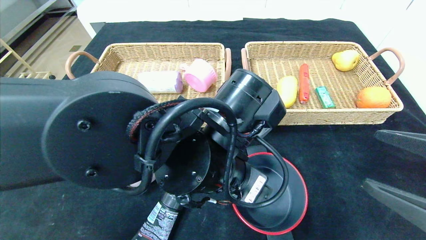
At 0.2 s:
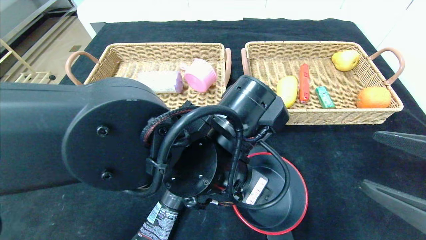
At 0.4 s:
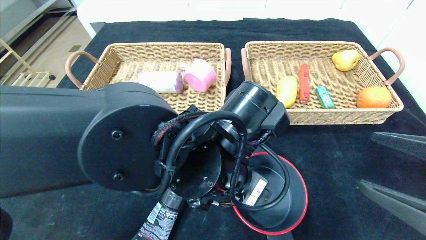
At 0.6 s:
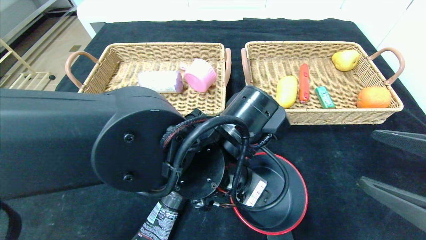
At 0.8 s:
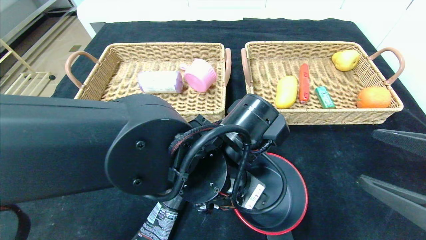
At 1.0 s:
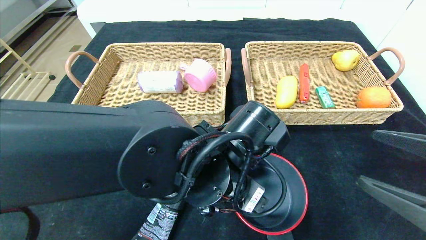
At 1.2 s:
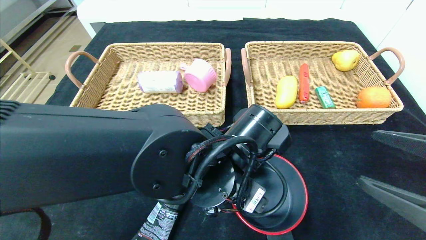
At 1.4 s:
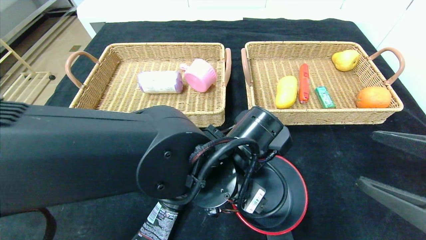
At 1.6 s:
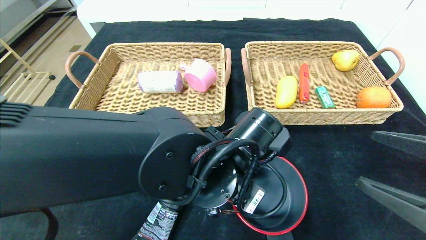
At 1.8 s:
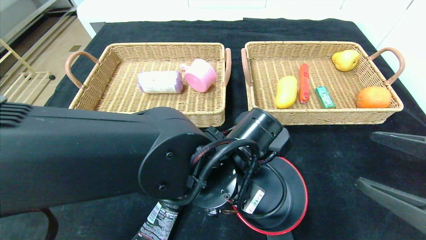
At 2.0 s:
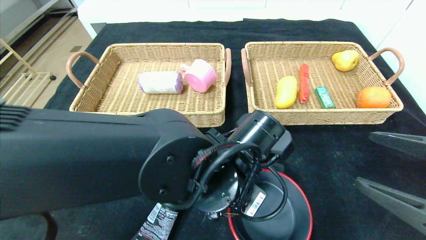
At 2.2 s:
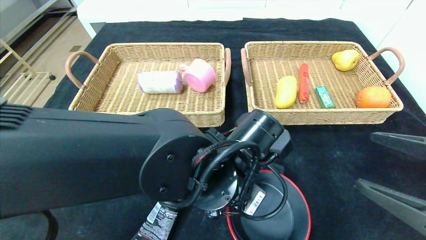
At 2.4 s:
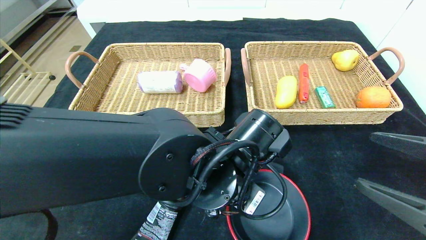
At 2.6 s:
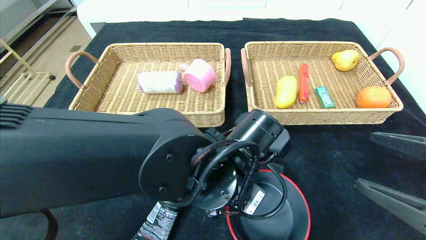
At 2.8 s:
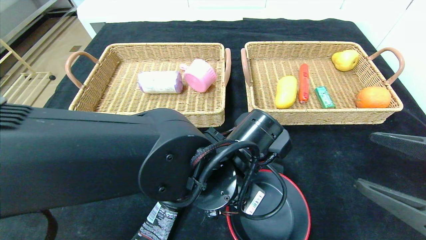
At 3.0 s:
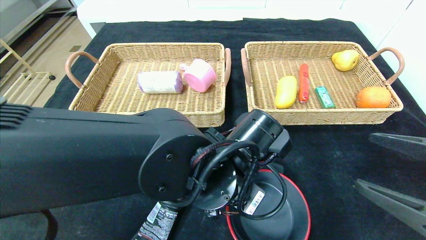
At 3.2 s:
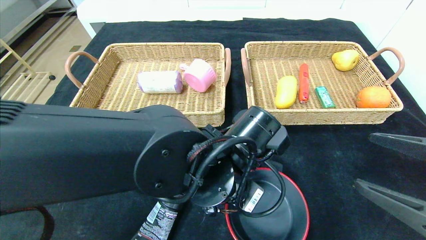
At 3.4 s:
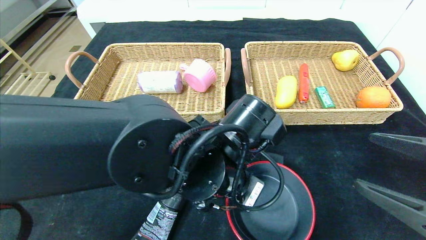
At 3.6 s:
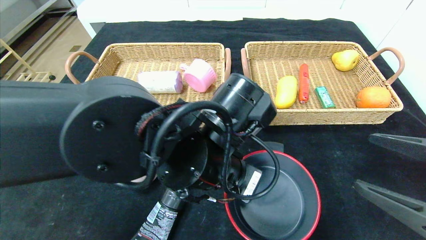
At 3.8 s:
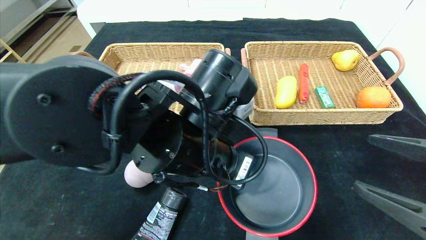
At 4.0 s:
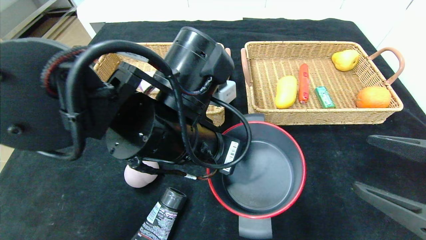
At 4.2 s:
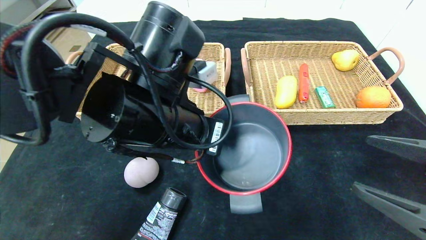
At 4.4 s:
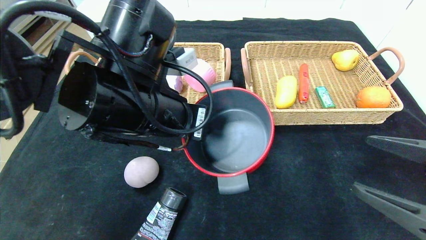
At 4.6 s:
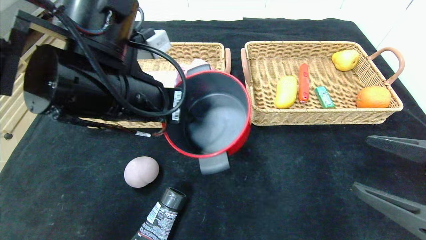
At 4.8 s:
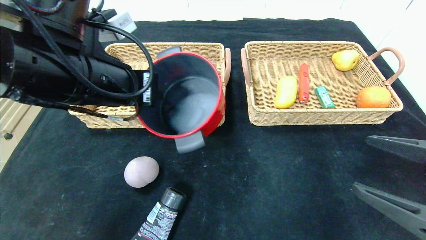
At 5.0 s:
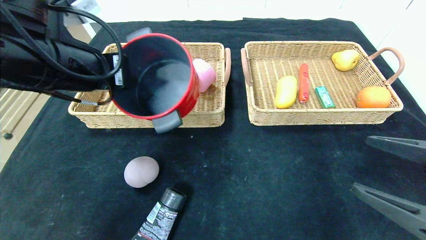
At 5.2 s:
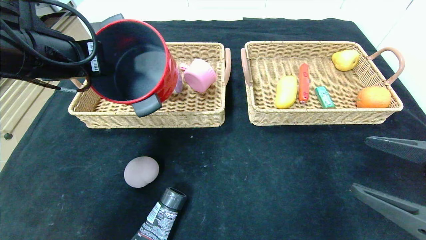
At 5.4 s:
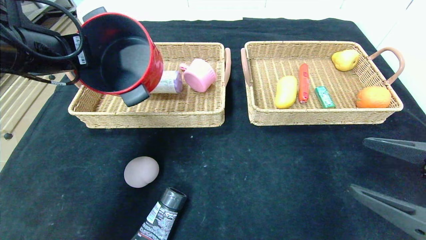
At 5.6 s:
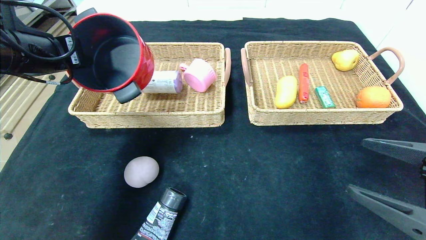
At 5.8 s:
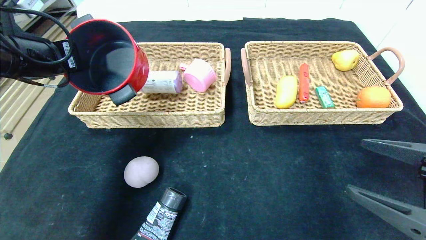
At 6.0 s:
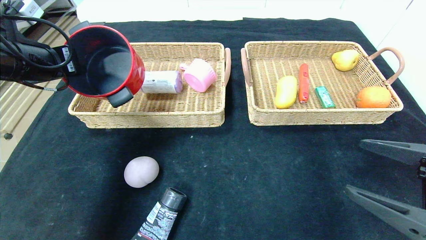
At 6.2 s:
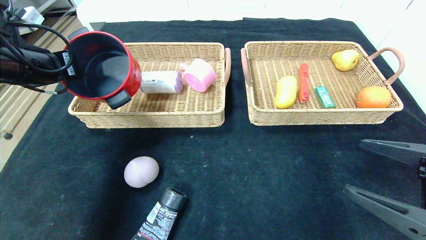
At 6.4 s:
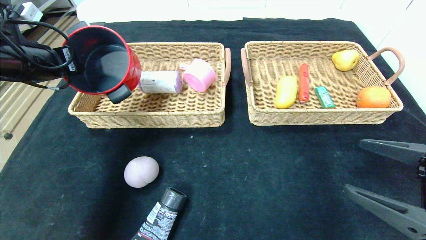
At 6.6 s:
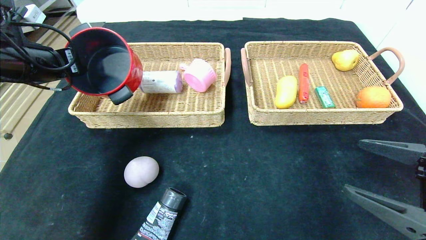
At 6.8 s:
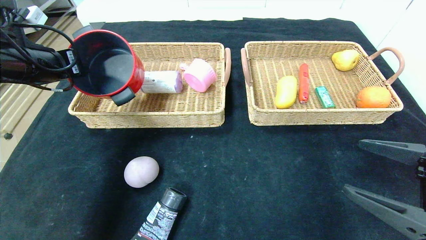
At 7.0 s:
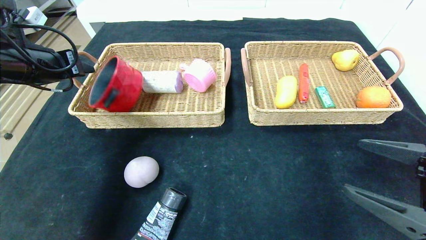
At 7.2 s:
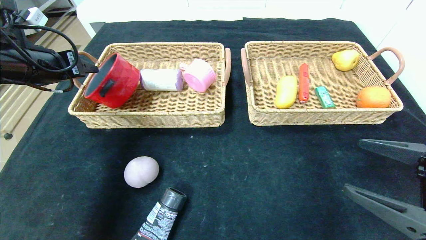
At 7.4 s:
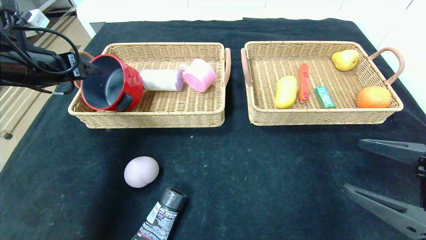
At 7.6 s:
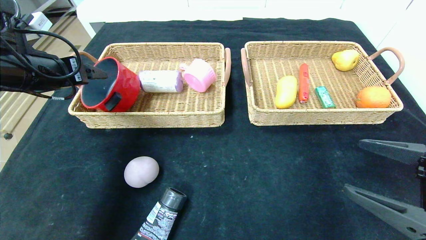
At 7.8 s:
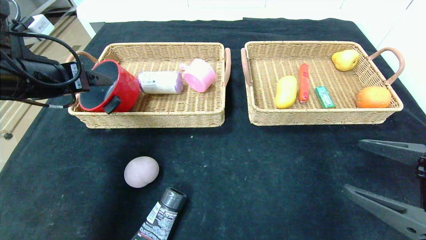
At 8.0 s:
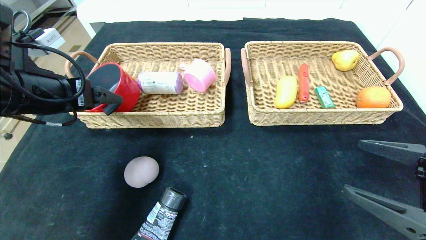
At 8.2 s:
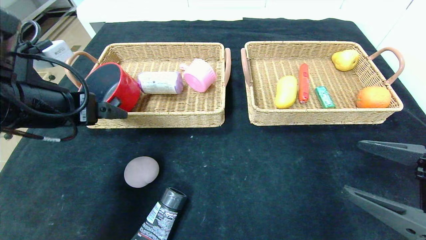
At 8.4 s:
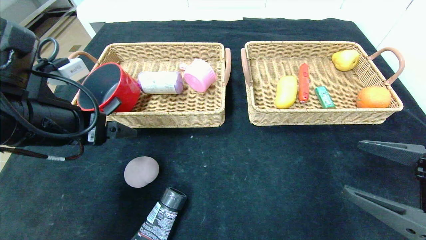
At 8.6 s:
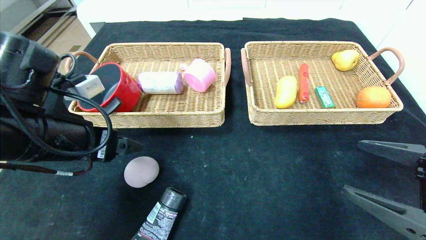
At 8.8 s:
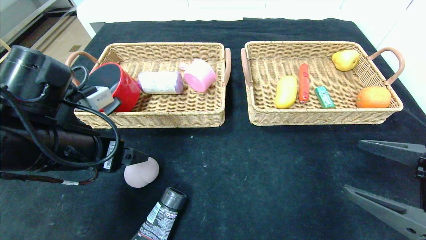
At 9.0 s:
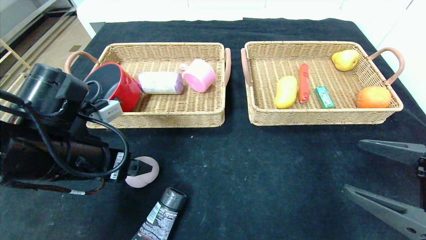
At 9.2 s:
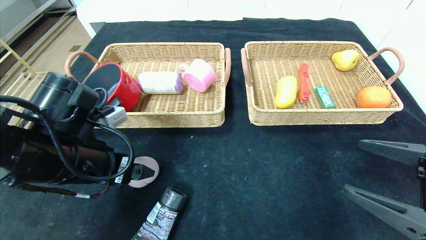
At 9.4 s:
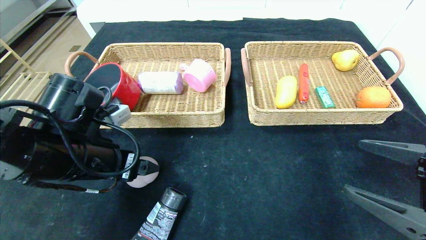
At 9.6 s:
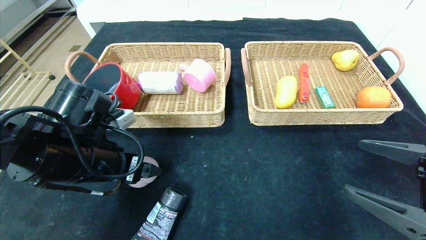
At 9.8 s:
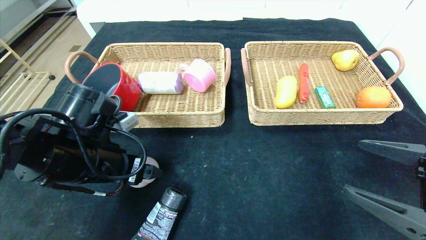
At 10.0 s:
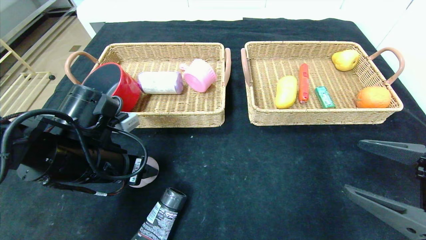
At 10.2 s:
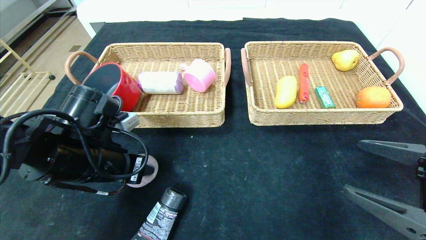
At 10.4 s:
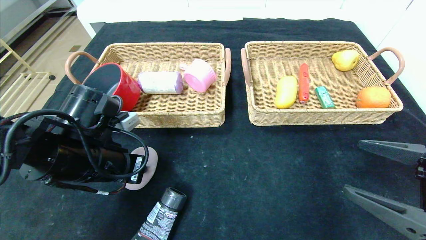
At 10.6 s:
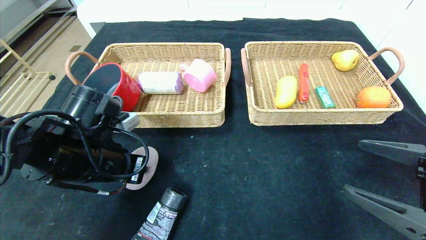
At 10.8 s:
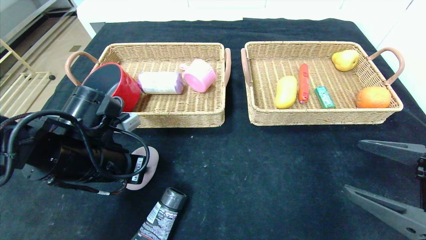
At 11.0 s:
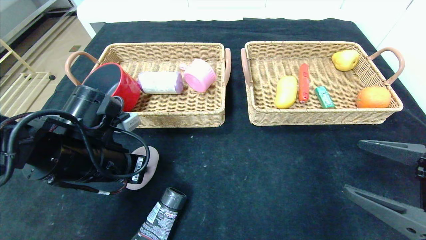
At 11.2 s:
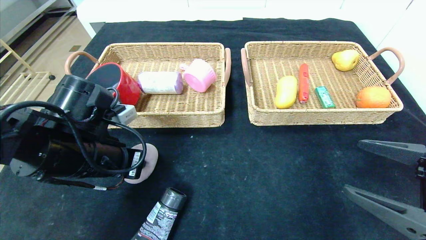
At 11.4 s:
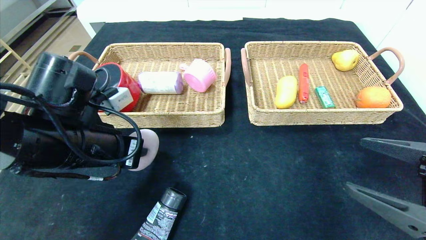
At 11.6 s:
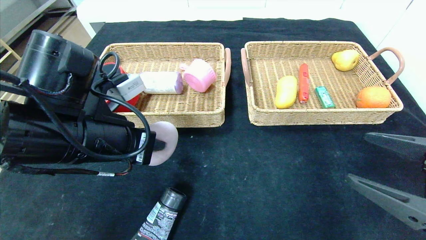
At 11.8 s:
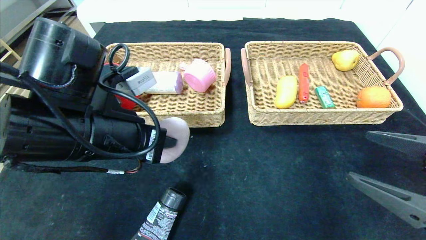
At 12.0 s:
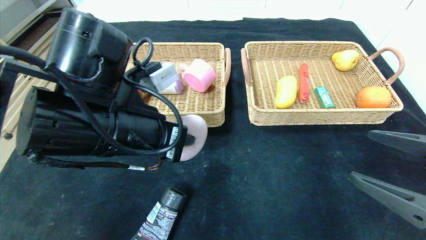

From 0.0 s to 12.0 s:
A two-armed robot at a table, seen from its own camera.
Step, from 0.0 s to 7.0 s: Grasp the red pot and put it in the left basket.
From 1.6 s to 3.0 s: The left gripper closes its fingers.
From 3.0 s to 4.4 s: The left gripper goes some 15 cm upward and to the left.
From 4.4 s to 6.0 s: The left gripper travels to the left by some 20 cm.
From 6.0 s to 7.6 s: The left gripper opens.
From 7.6 s to 9.0 s: The left gripper heads to the right, downward and backward, covering roughly 15 cm.
From 9.0 s to 10.4 s: The left gripper closes its fingers.
From 10.4 s to 12.0 s: The left gripper travels to the right and upward by some 10 cm.

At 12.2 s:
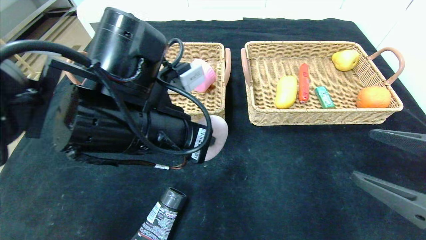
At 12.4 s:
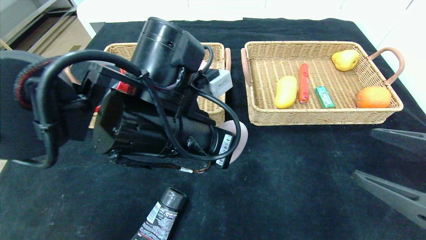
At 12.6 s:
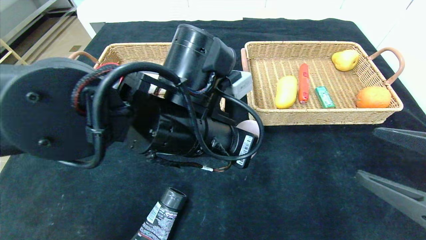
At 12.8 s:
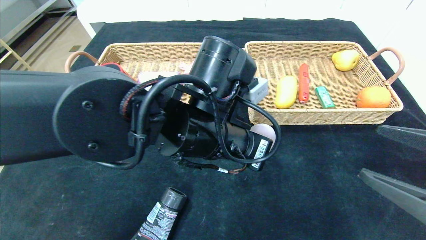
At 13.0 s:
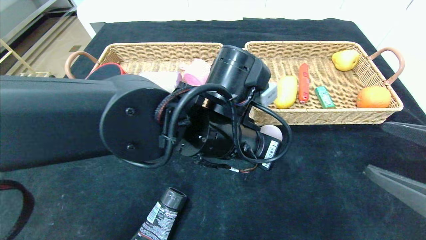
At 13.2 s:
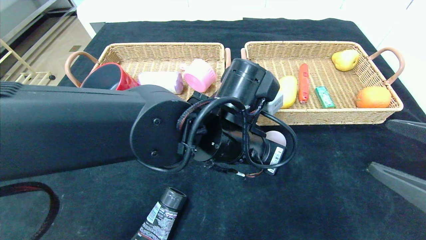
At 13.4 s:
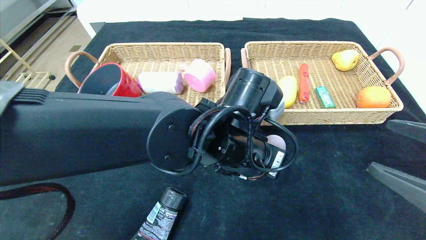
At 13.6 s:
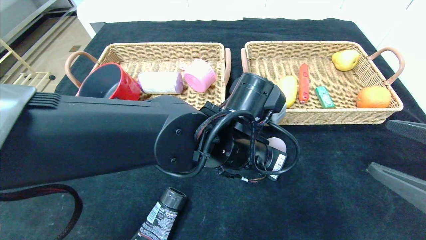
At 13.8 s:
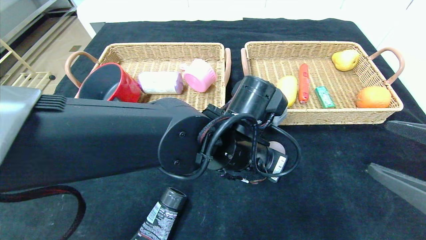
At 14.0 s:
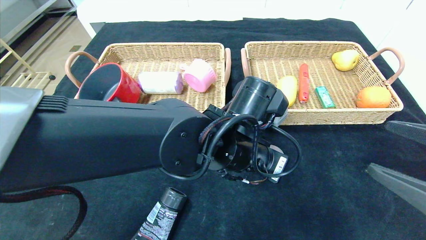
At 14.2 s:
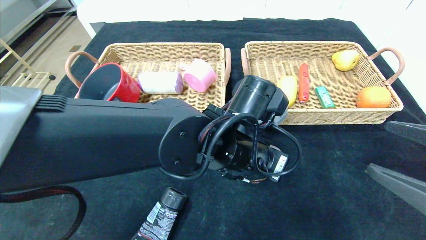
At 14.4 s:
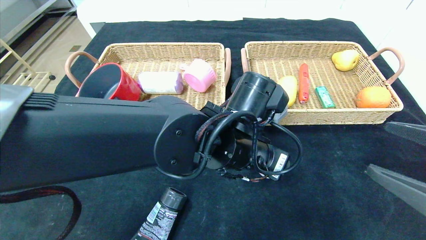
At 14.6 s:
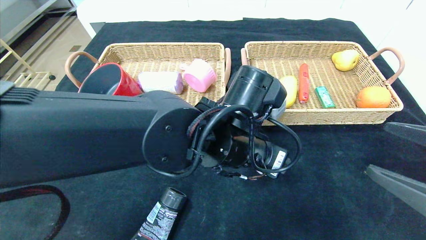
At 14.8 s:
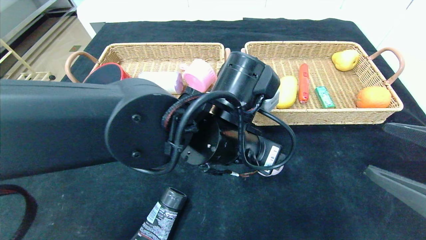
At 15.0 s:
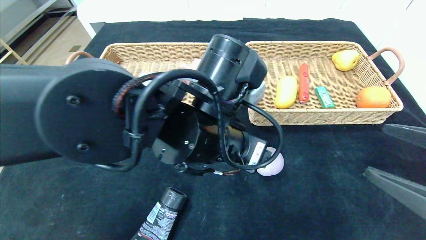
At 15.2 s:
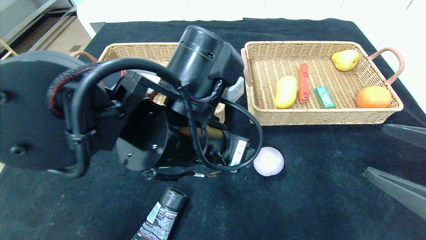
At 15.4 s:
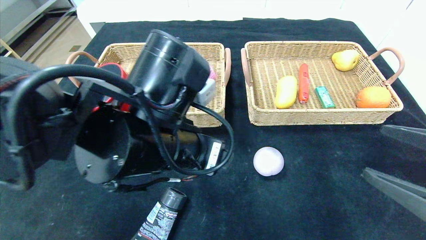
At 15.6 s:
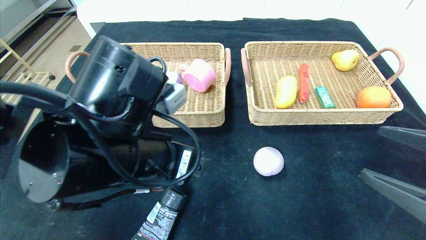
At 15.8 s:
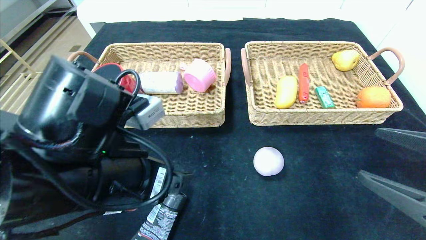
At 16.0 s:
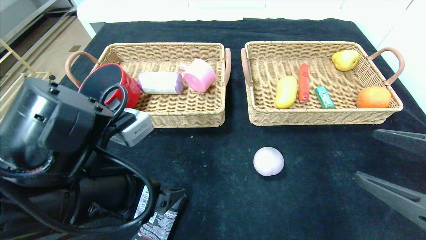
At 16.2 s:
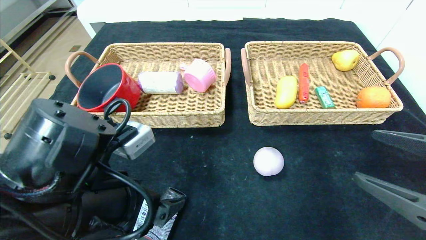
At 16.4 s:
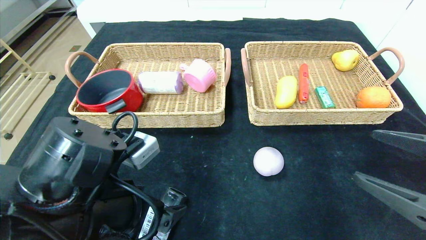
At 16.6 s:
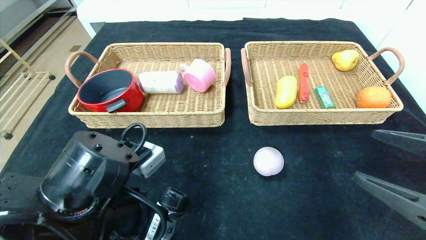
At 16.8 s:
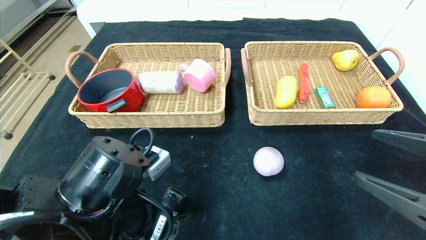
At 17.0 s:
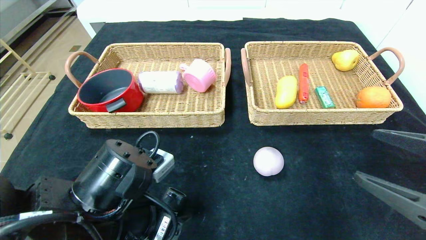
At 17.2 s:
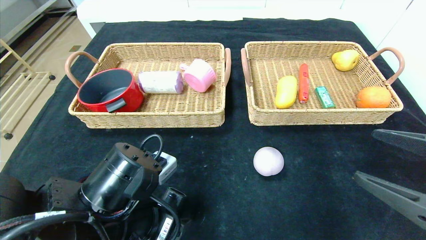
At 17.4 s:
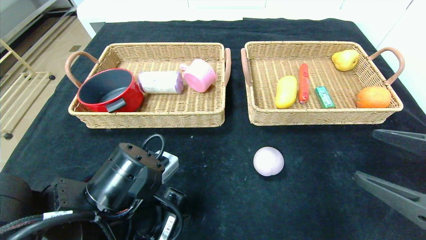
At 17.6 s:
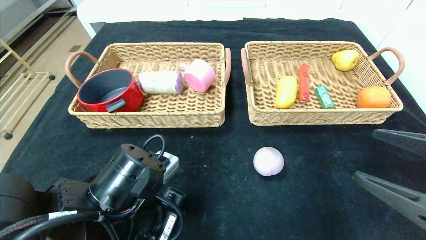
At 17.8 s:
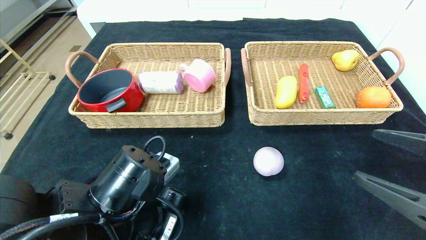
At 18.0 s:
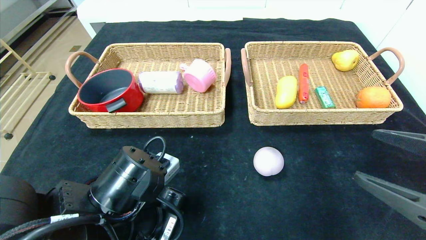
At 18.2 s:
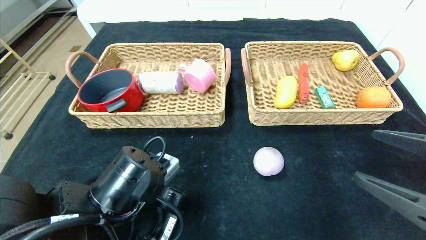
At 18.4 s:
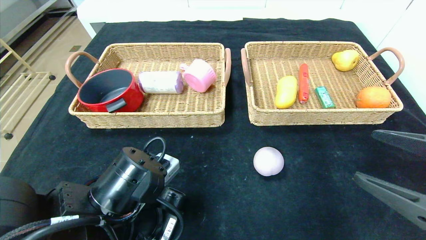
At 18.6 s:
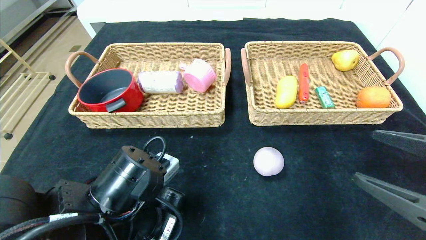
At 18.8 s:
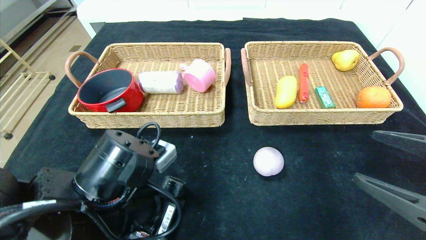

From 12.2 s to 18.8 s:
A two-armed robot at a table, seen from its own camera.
Step, from 12.2 s to 14.6 s: Place the peach in the center of the table.
From 12.2 s to 13.8 s: The left gripper moves to the right and downward, roughly 15 cm.
From 13.8 s to 15.4 s: The left gripper moves to the left and backward, approximately 10 cm, and opens its fingers.
From 15.4 s to 17.2 s: The left gripper is displaced downward and to the left by approximately 10 cm.
From 17.2 s to 18.8 s: The left gripper closes.
